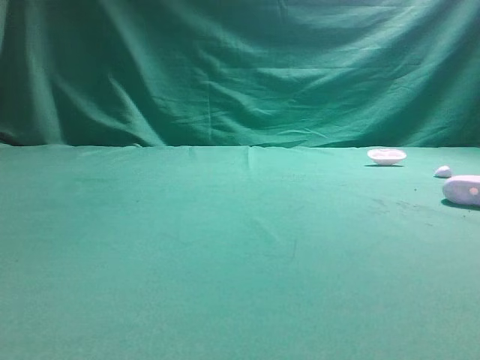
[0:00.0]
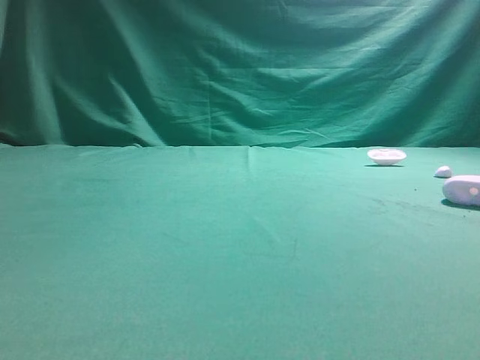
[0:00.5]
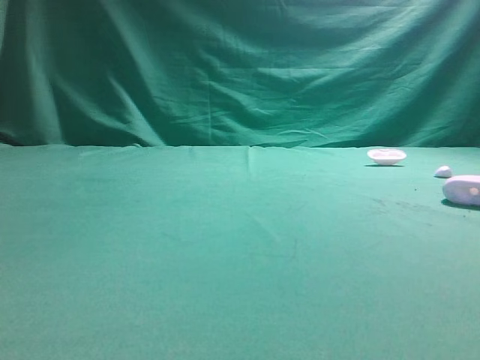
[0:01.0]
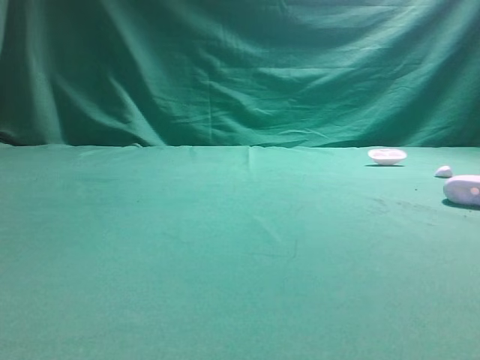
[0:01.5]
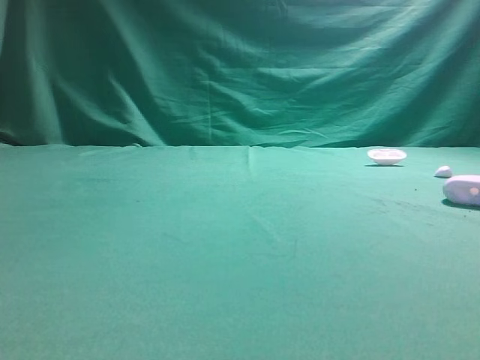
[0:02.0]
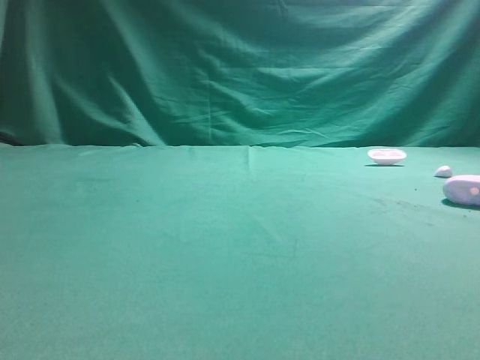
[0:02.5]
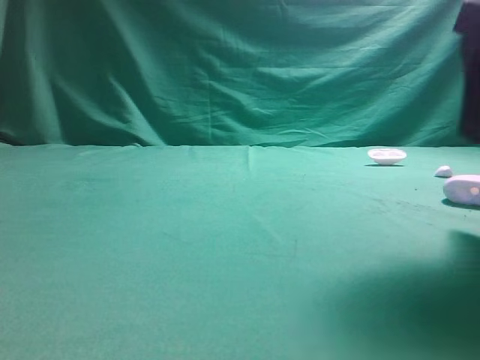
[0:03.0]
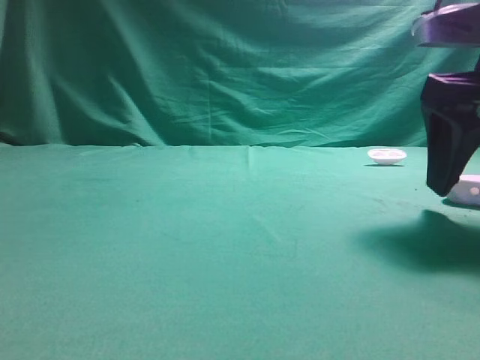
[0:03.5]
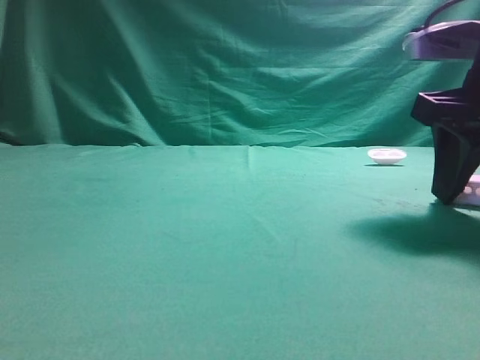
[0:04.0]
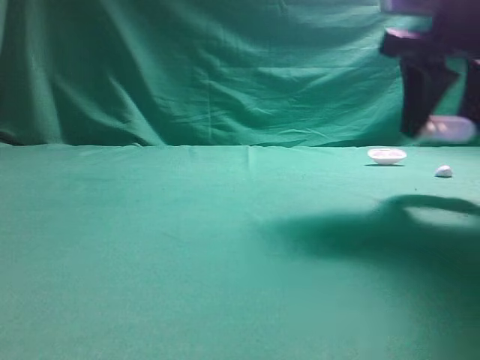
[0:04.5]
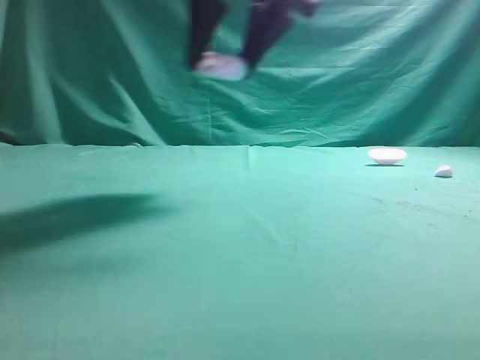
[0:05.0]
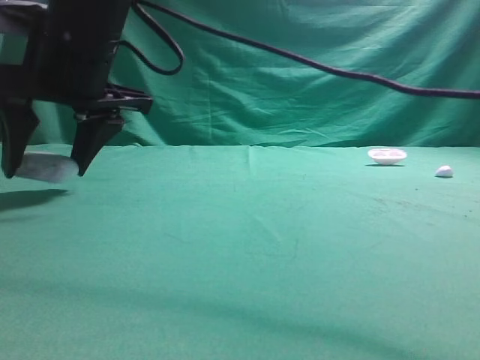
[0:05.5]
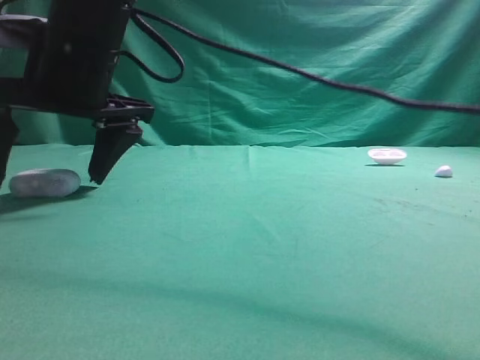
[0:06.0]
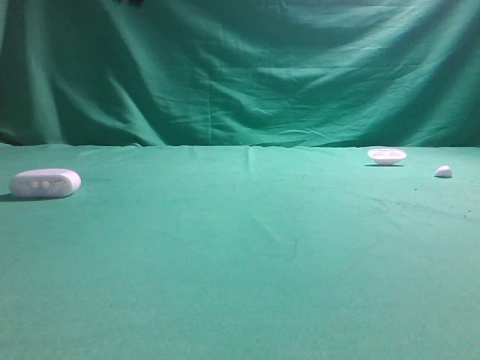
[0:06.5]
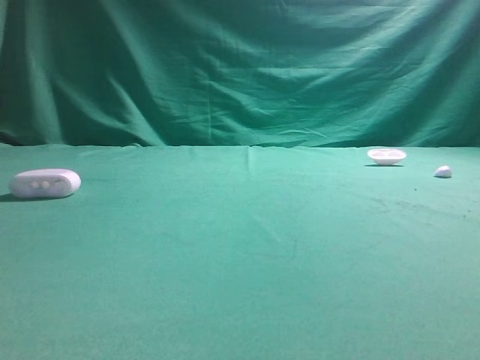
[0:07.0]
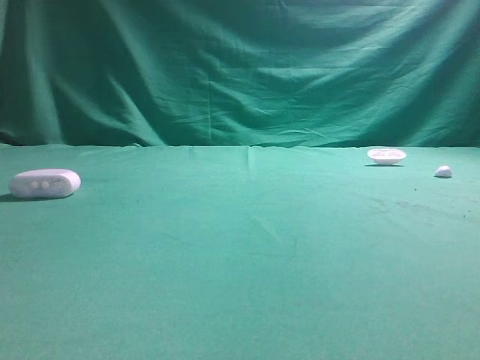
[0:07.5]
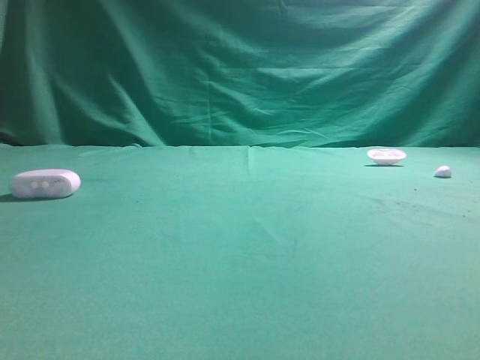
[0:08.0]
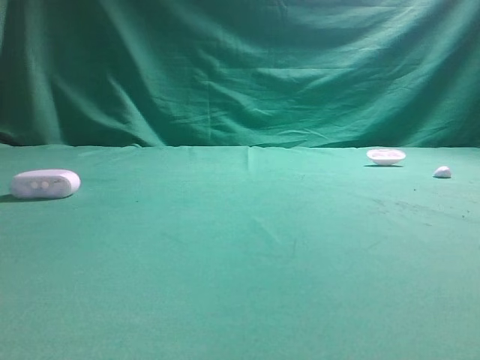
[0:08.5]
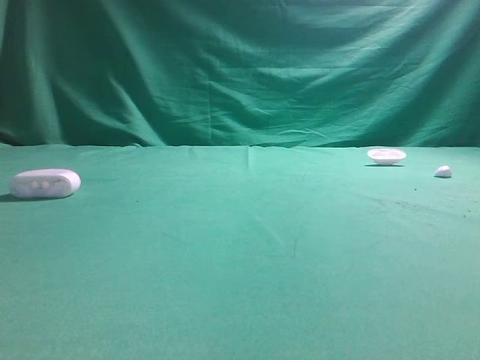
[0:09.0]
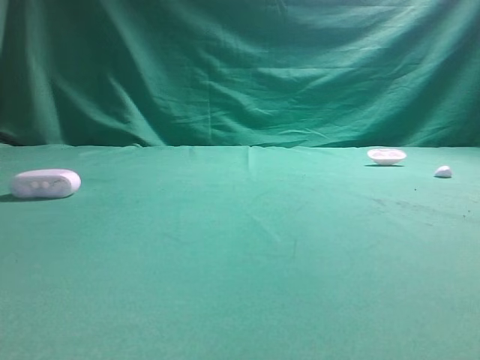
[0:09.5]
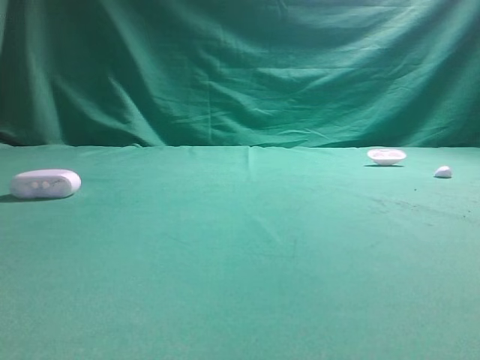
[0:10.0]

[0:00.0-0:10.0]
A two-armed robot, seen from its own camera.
Step, 0:00.0 to 0:04.0: Grasp the Bluetooth earphone case.
Step, 0:04.5 to 0:06.0: Place bluetooth earphone case on the left side of the table.

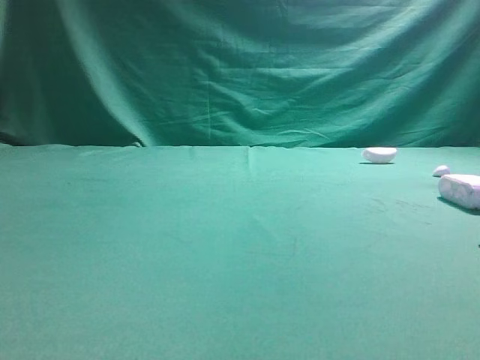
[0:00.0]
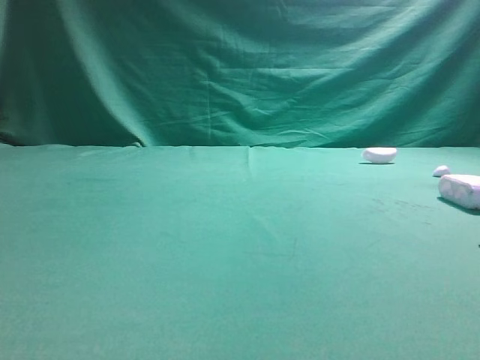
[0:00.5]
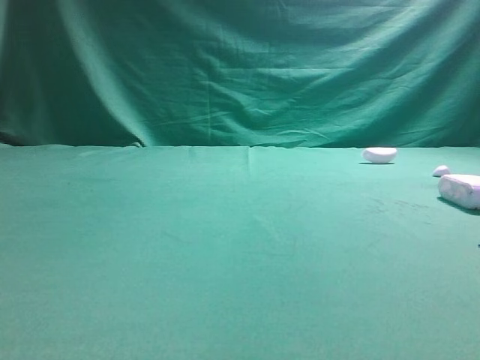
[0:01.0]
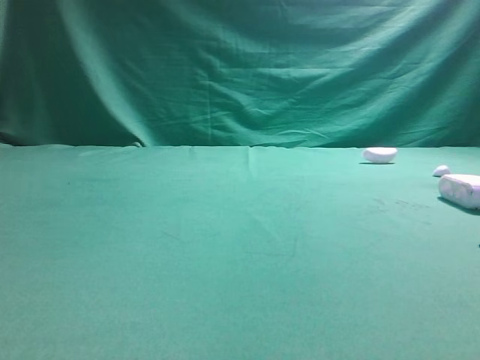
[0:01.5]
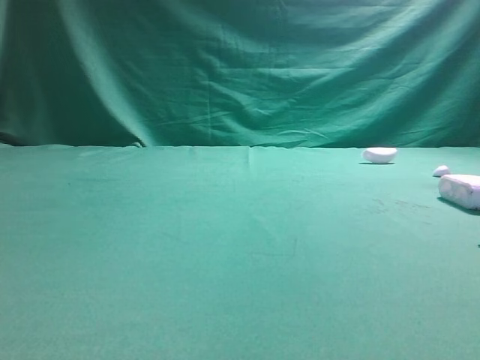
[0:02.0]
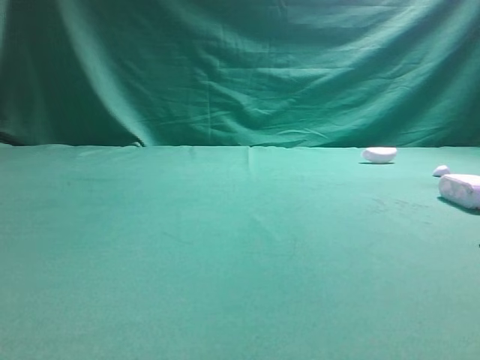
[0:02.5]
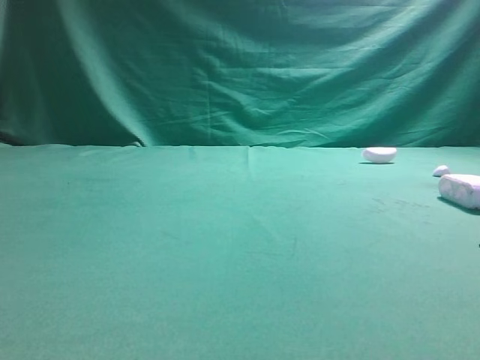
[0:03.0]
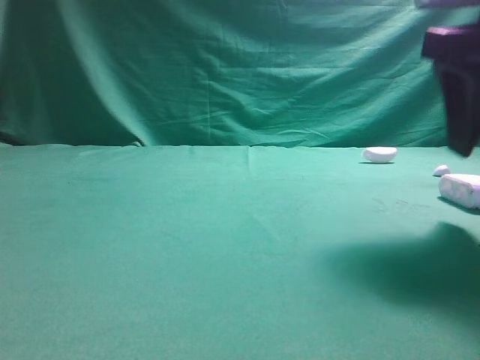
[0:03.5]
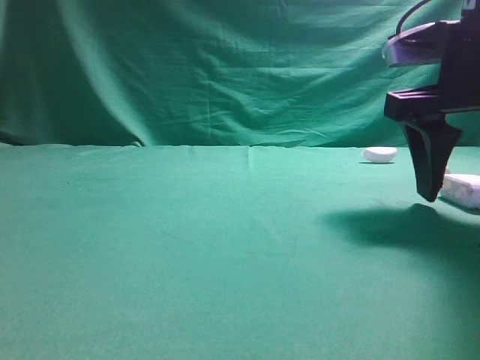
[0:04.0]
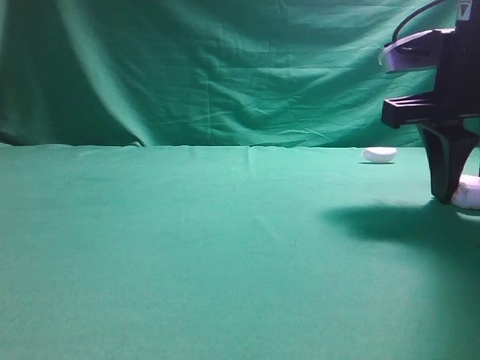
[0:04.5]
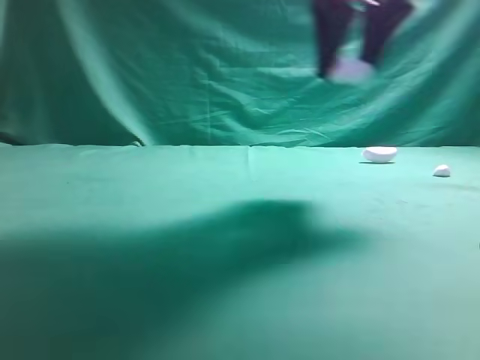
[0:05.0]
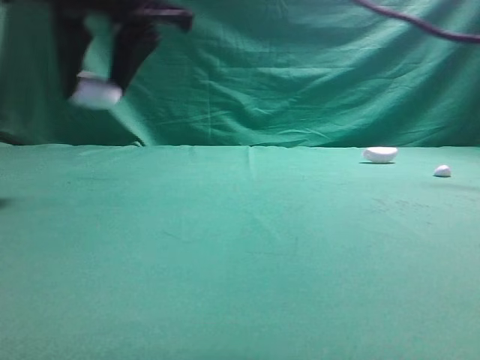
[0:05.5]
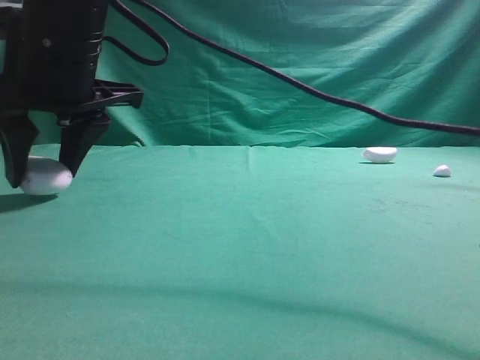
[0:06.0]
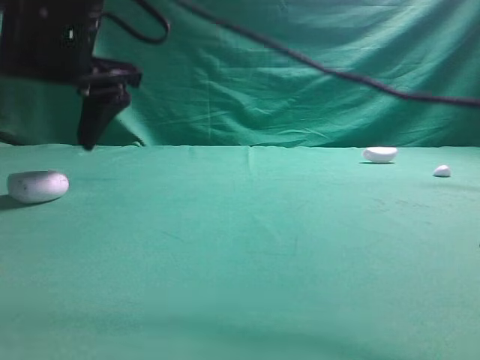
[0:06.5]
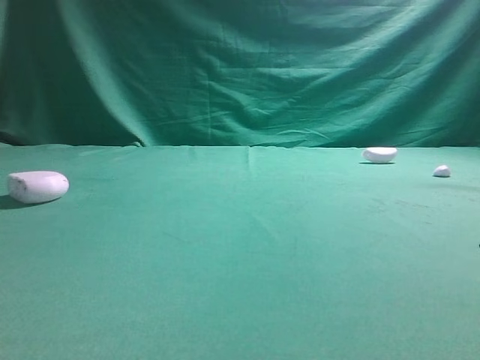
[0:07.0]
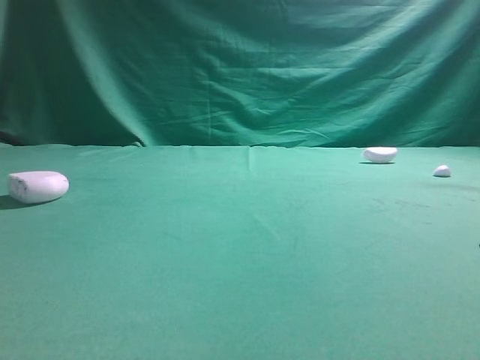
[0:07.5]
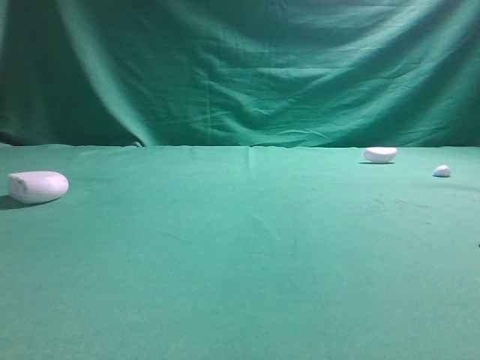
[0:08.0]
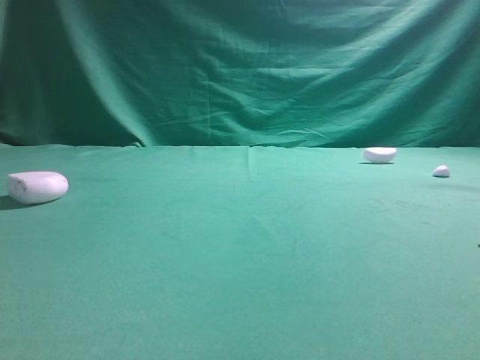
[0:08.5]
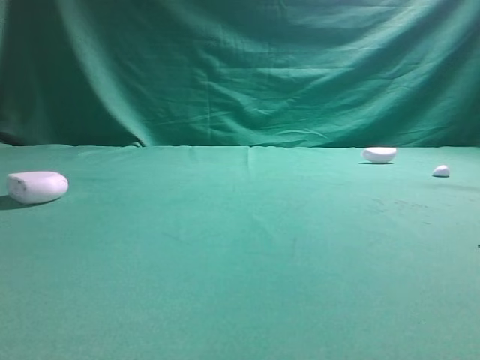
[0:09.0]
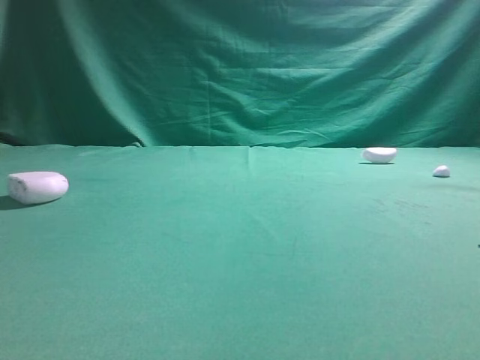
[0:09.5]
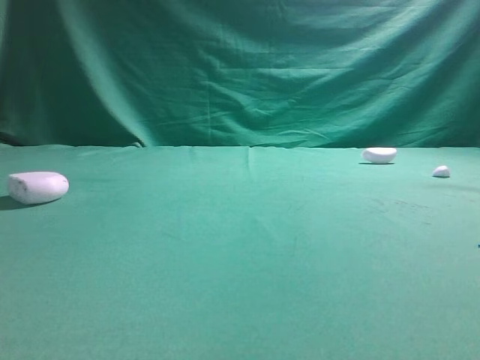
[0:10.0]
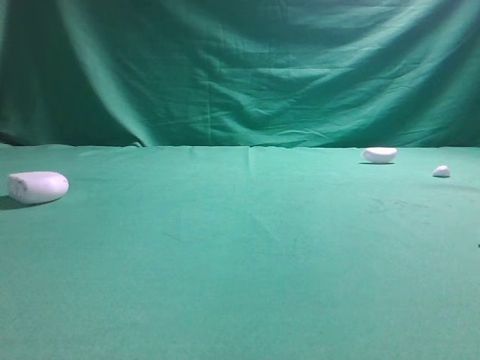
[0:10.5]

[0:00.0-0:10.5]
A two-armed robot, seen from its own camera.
Step, 0:00.0 to 0:04.5: Grasp the Bluetooth earphone case.
Step, 0:05.0 to 0:06.5: Place bluetooth earphone case on the left side of the table.

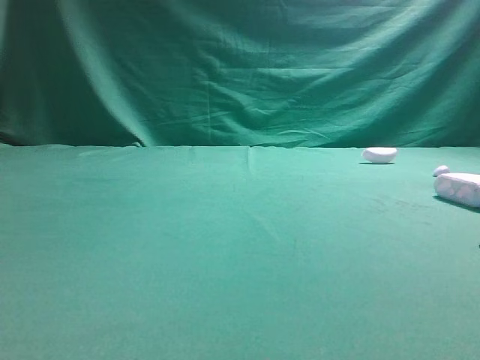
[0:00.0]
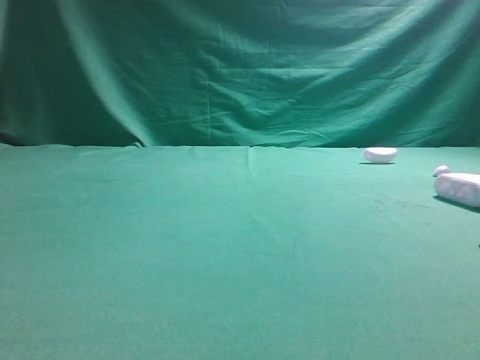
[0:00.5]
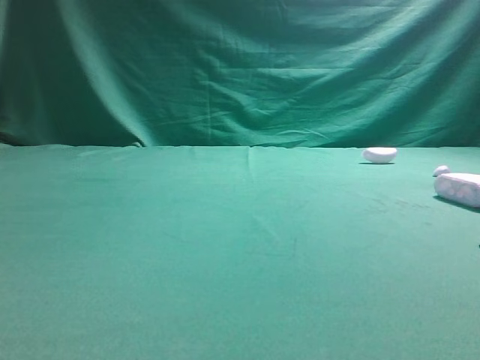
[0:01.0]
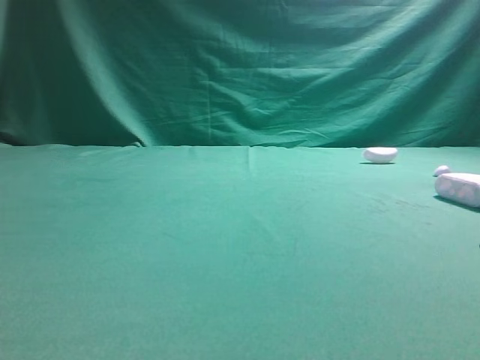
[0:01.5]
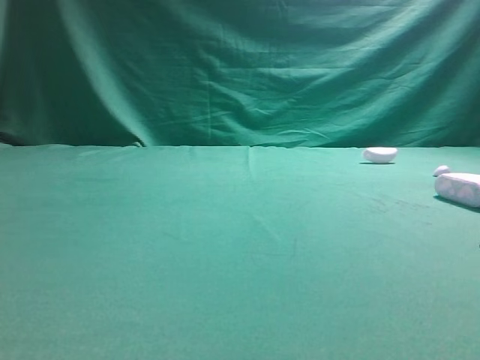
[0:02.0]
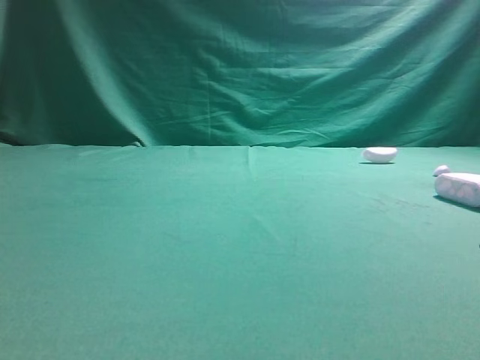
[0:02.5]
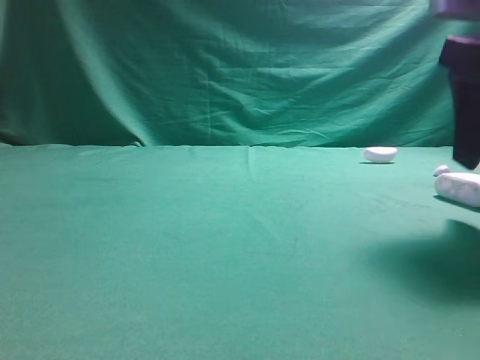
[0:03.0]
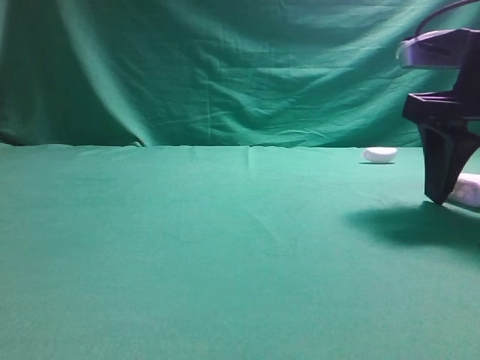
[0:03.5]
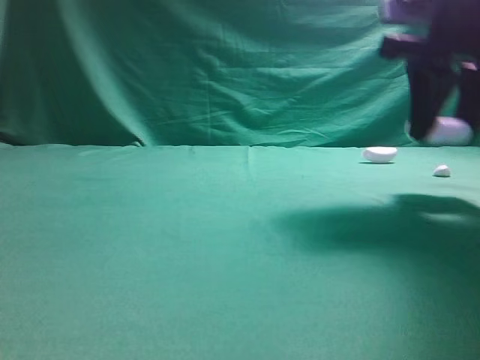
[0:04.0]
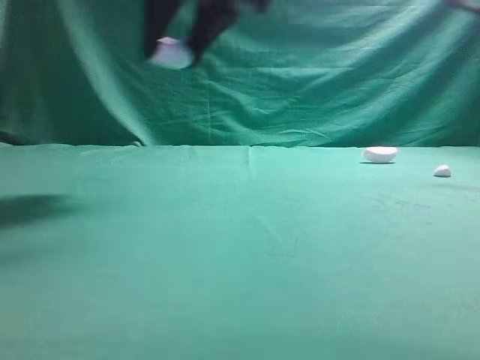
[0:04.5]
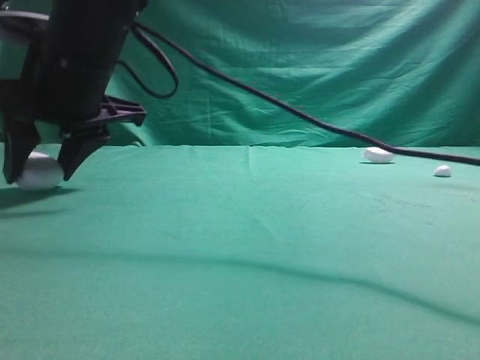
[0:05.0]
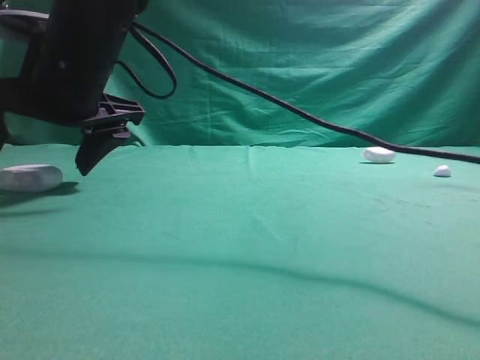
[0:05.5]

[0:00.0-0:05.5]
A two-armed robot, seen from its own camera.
Step, 0:00.0 to 0:04.0: Grasp the Bluetooth earphone case.
